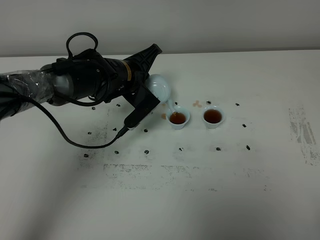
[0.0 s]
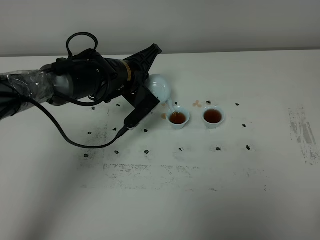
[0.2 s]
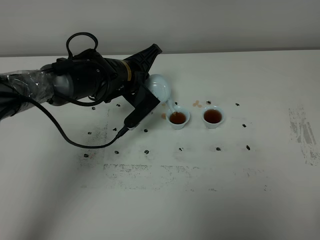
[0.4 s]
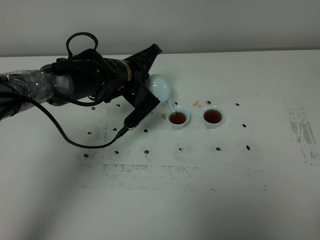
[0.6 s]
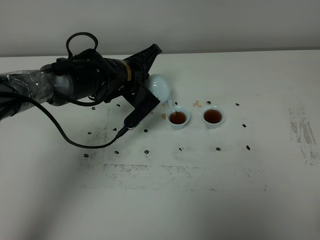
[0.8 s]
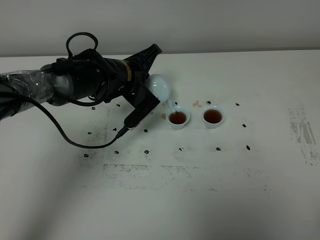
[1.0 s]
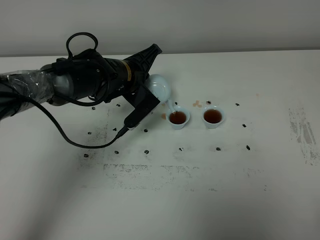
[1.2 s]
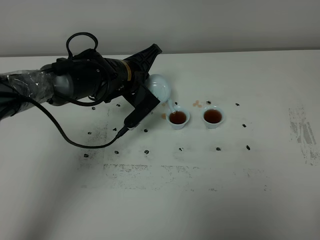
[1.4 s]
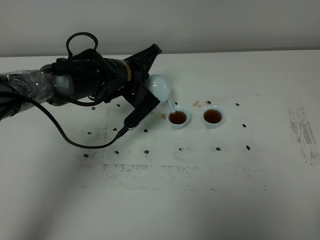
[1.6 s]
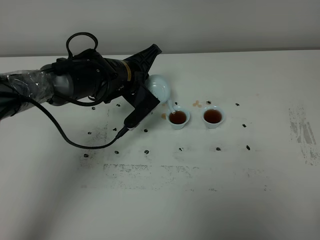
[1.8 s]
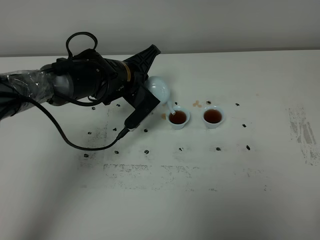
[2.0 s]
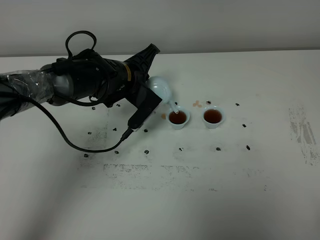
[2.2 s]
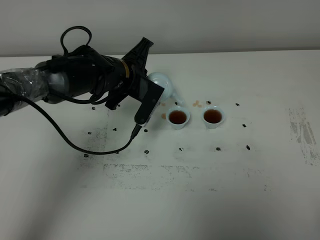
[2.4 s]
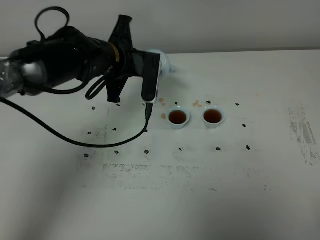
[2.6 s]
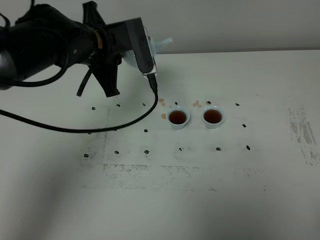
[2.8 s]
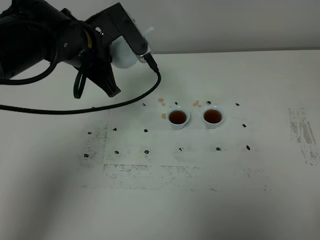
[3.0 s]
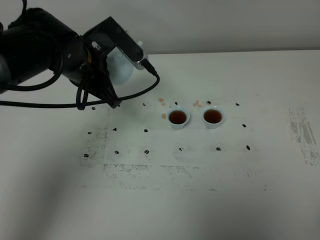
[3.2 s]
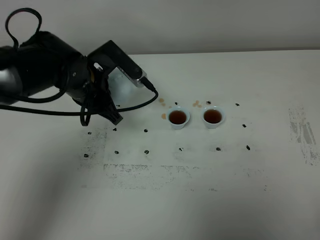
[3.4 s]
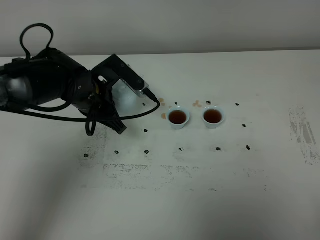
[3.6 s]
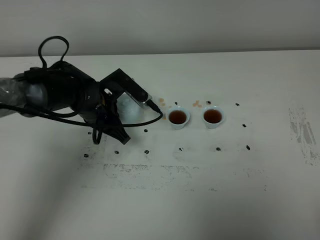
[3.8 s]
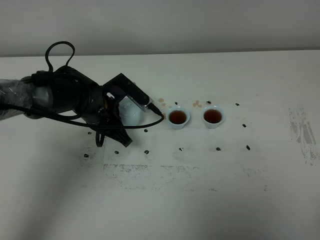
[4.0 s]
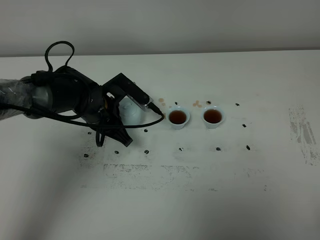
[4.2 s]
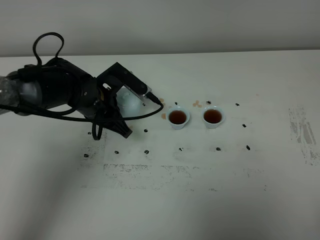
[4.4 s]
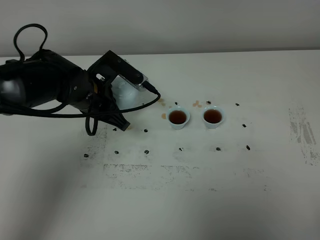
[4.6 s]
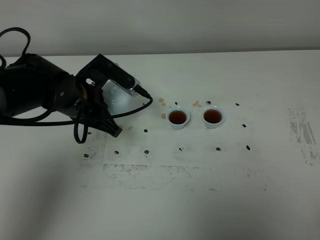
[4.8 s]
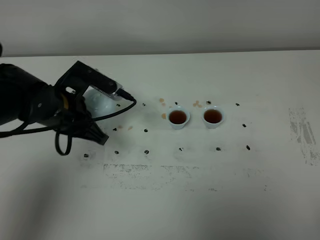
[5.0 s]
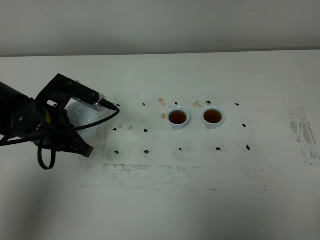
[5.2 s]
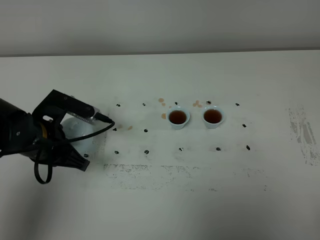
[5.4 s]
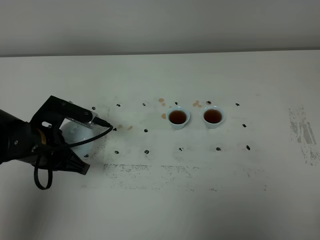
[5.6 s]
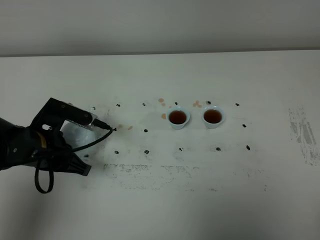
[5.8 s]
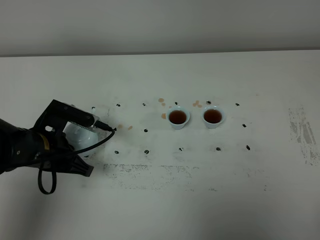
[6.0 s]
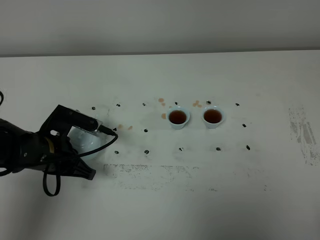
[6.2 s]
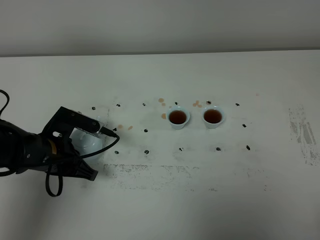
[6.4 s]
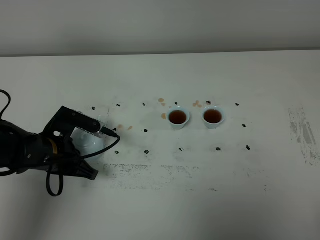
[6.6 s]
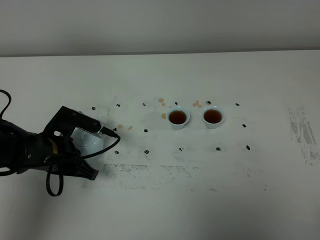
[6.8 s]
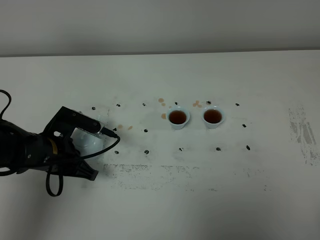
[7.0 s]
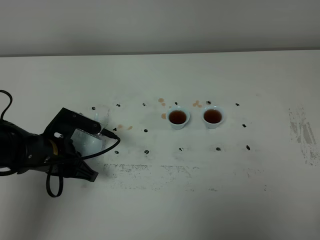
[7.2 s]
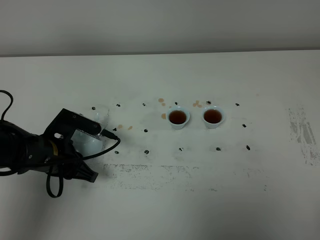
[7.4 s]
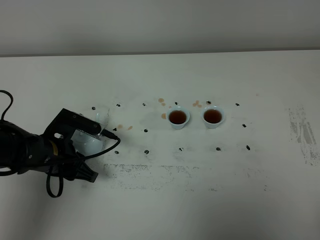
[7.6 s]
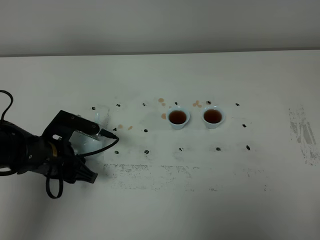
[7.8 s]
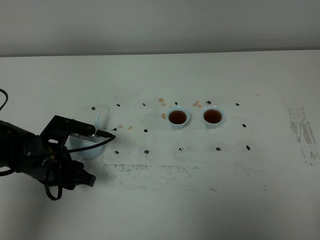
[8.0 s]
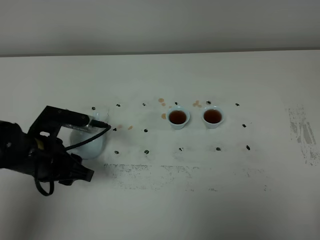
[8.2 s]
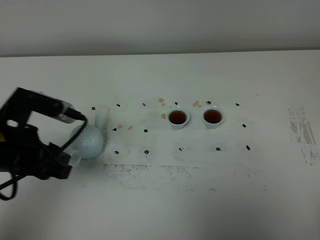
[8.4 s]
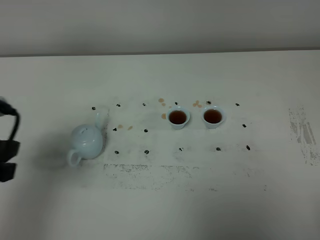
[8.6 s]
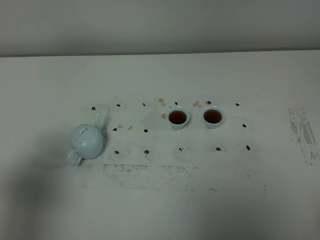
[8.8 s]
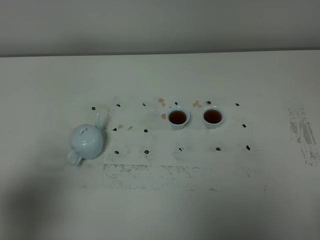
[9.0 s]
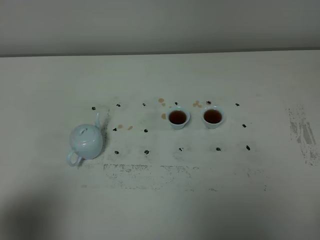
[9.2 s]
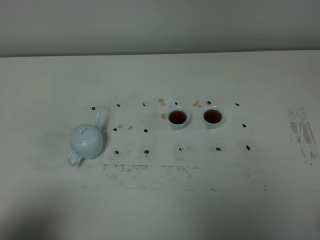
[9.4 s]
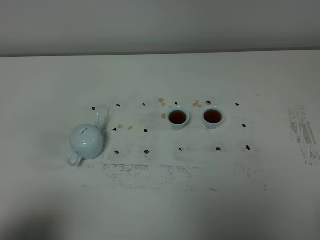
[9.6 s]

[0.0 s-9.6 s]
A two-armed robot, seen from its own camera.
Task of the whole recording: grasp the blue porcelain teapot and pour the tea into the two blue porcelain teacups one by one, put the blue porcelain teapot back in its original place.
Step, 0.0 to 2.4 s: Pour tea into the teacup with the left gripper.
0.0 to 1.6 s: Both grippers stay about where they are.
1.6 to 3.2 s: The left gripper is displaced upward, backward and to the left by some 10 cm.
3.2 to 4.8 s: The left gripper heads downward, covering roughly 5 cm.
4.8 to 6.4 s: The left gripper heads downward, backward and to the left, covering some 10 cm.
6.4 to 8.0 s: The left gripper opens.
8.0 to 9.6 s: The left gripper is displaced backward and upward by roughly 30 cm.

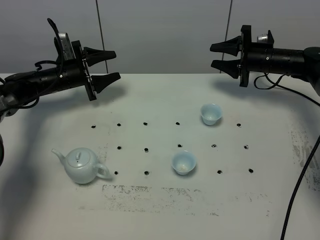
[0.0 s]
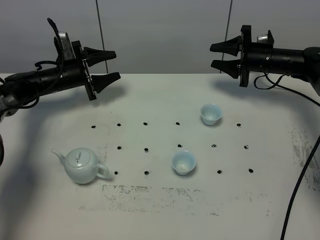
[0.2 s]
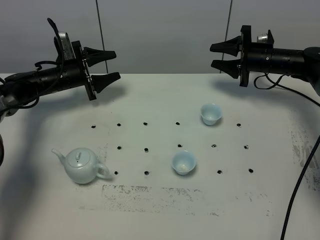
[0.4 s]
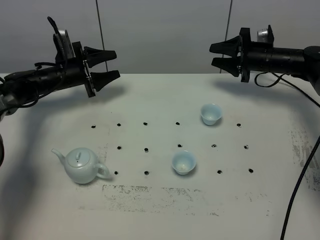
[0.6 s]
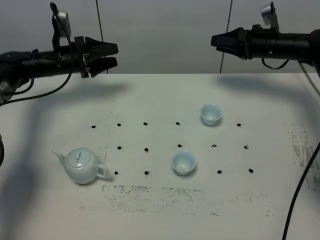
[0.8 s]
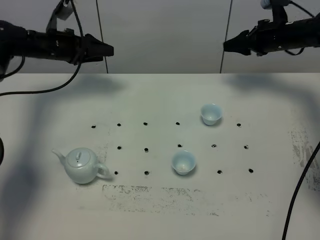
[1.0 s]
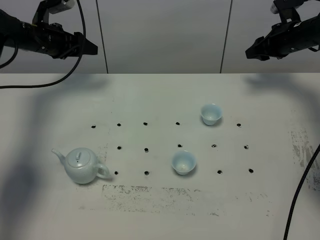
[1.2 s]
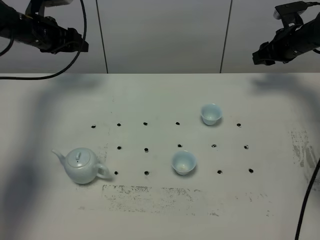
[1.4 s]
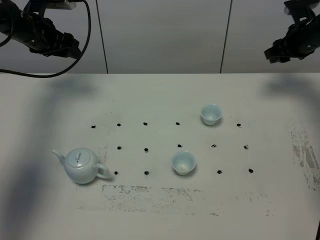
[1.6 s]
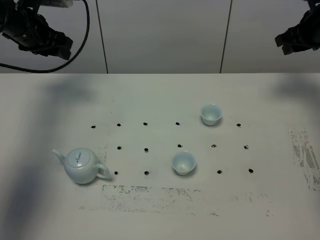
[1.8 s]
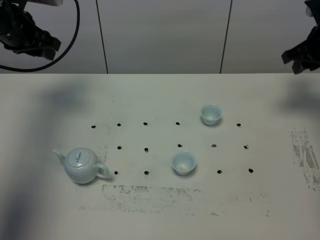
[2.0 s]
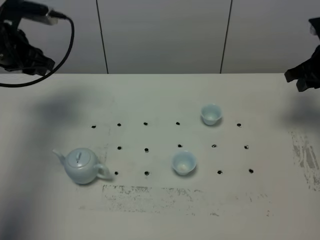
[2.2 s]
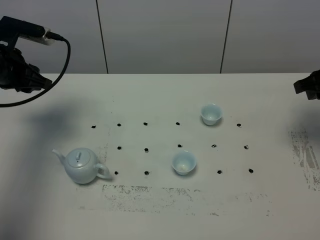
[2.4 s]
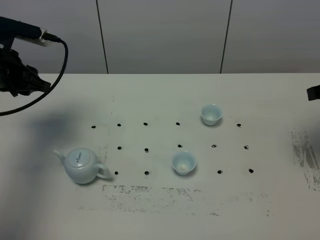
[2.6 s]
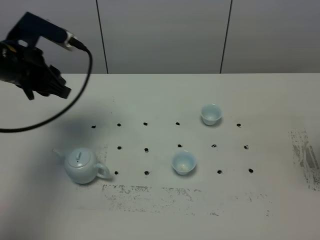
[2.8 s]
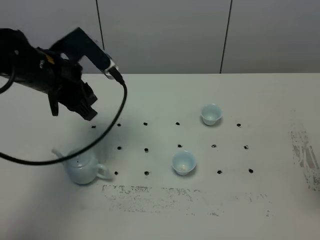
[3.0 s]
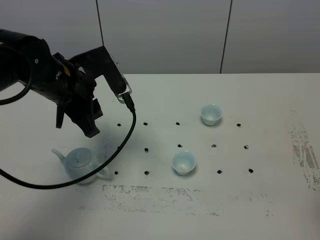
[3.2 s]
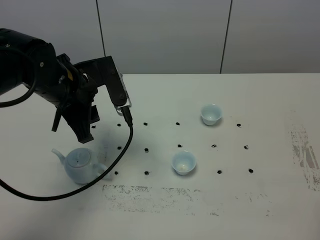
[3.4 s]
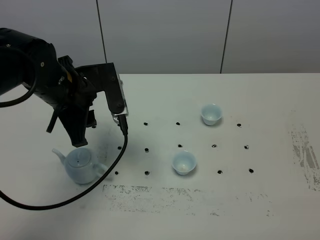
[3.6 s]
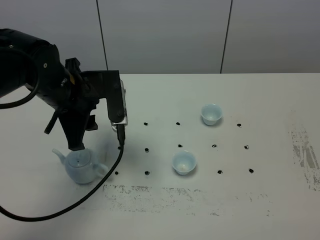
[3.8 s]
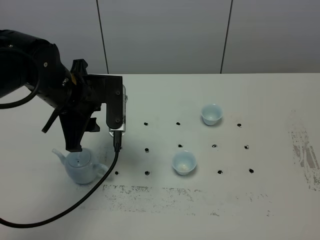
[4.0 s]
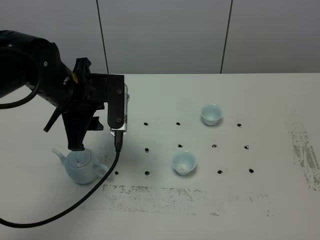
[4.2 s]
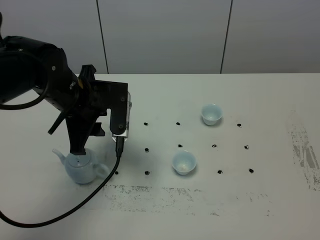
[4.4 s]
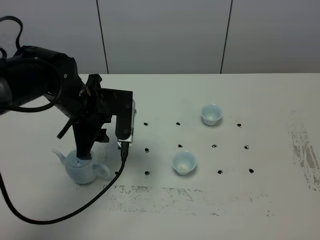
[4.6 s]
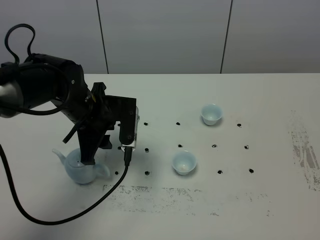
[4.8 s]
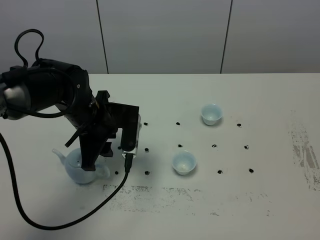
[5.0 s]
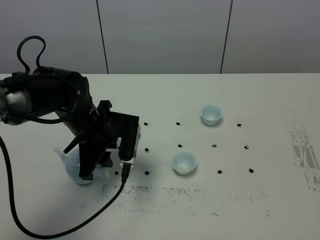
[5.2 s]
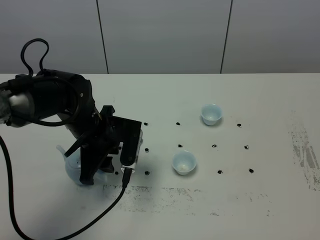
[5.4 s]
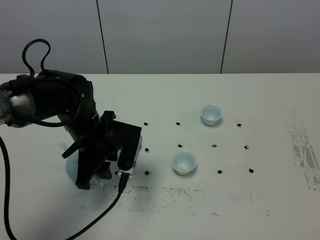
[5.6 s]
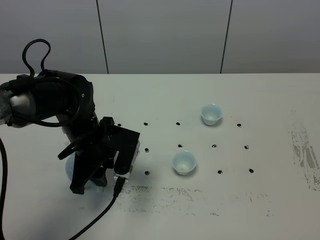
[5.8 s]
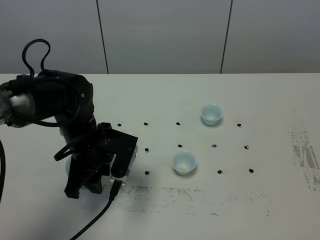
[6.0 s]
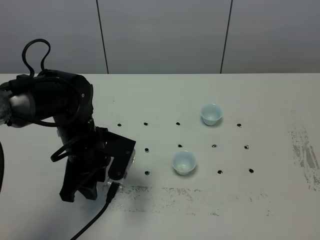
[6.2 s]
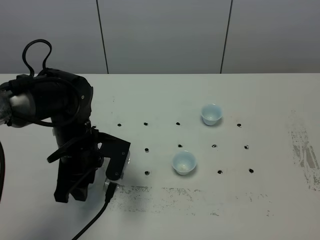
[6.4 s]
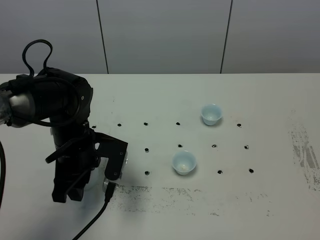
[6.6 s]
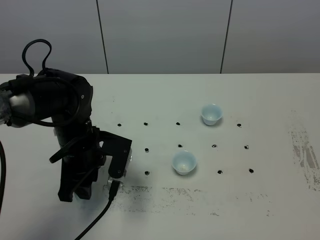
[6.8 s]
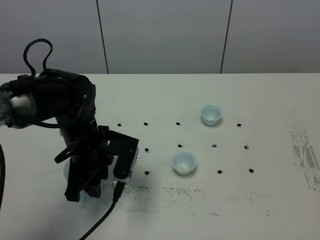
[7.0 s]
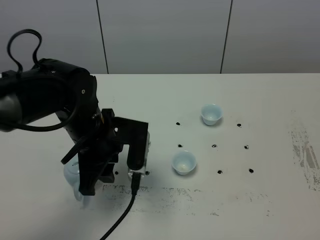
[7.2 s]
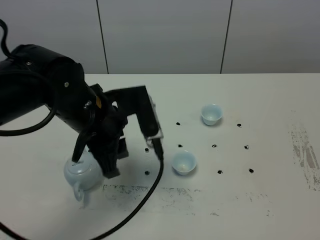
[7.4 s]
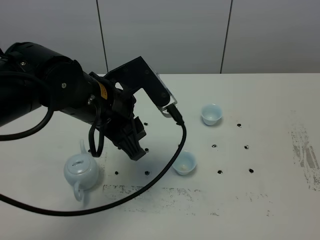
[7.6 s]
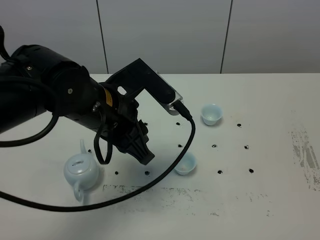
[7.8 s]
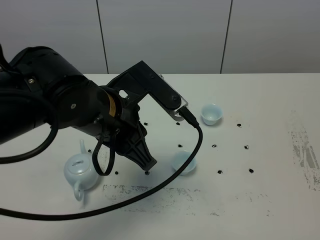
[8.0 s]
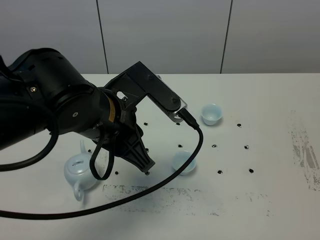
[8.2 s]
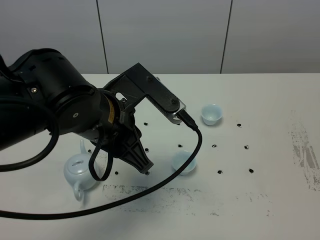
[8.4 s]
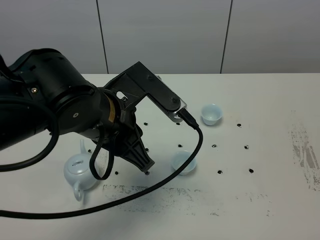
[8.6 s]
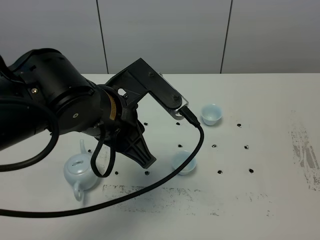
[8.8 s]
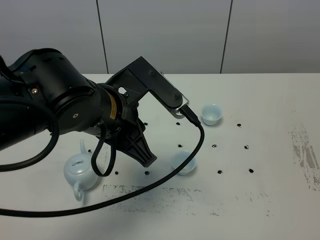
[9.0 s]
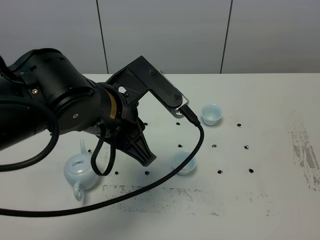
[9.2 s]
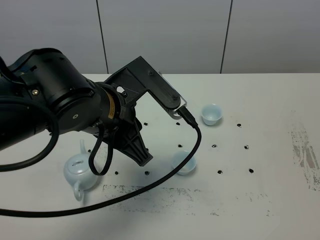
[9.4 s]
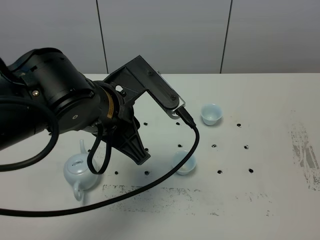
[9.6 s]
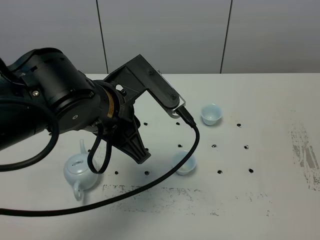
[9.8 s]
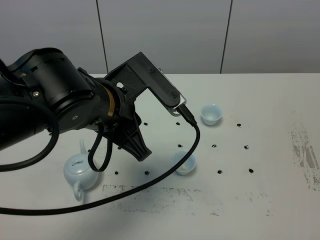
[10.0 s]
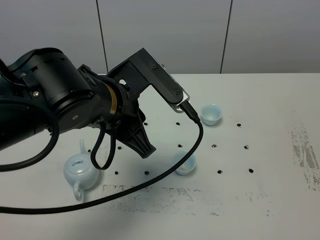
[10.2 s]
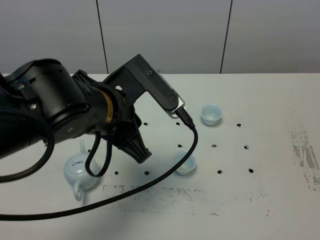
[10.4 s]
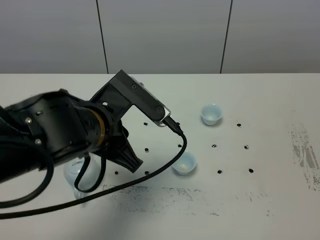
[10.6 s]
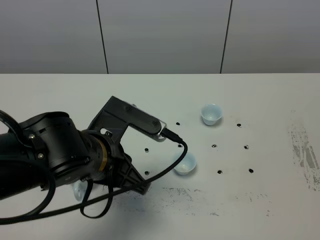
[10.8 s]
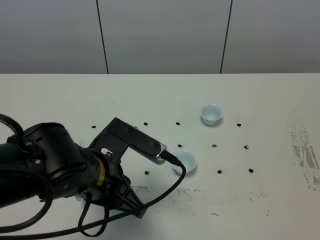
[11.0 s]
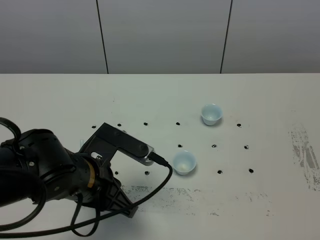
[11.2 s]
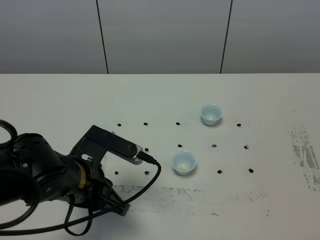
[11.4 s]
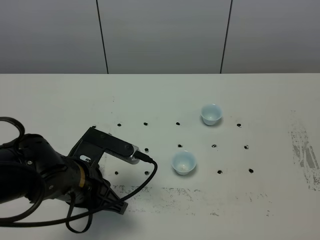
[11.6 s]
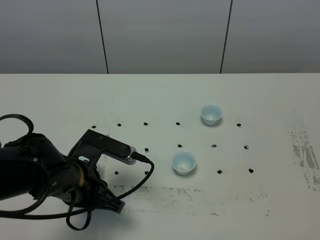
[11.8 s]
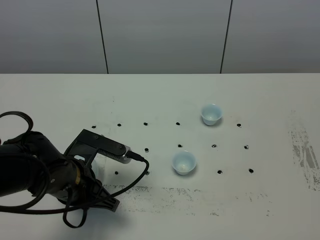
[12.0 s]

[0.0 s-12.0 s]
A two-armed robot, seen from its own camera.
Task of the whole recording: grasp the blue porcelain teapot and pour the tea into the two blue porcelain teacups one by one, put the blue porcelain teapot back in its original place.
0.0 to 1.6 s: The left gripper shifts some 15 cm upward. Meanwhile the right gripper moves upward and to the right, approximately 10 cm.
1.6 to 3.0 s: The right gripper shifts roughly 35 cm backward, and closes, while the left gripper shifts approximately 20 cm backward and to the right.
3.0 to 4.4 s: The left gripper ends up some 5 cm from where it was. Meanwhile the right gripper goes approximately 20 cm backward.
4.4 to 6.0 s: The left gripper moves downward, roughly 5 cm.
6.0 to 7.6 s: The left gripper travels upward by some 10 cm.
7.6 to 10.4 s: The grippers stay close to where they were, moving slightly.
10.4 to 12.0 s: The left gripper goes roughly 15 cm downward and to the left.
